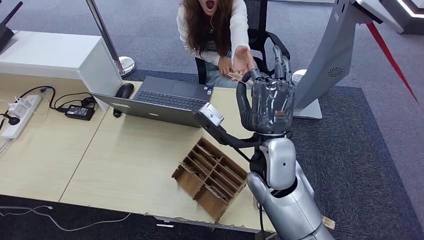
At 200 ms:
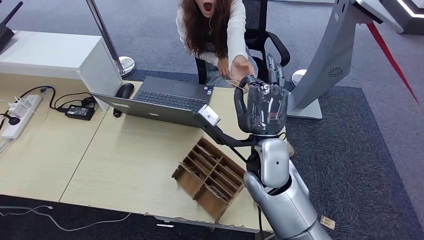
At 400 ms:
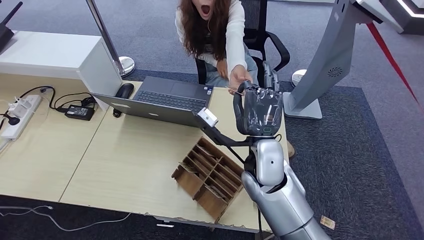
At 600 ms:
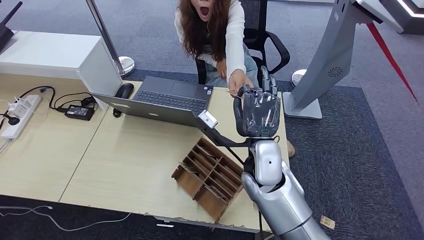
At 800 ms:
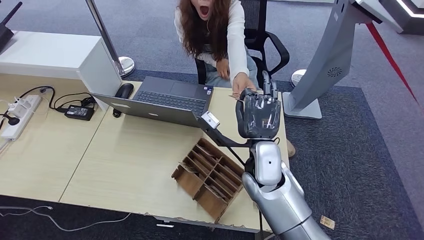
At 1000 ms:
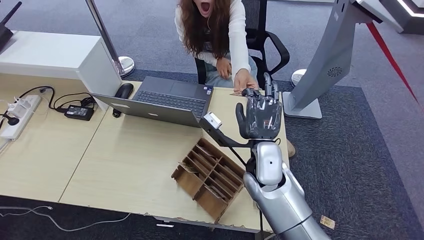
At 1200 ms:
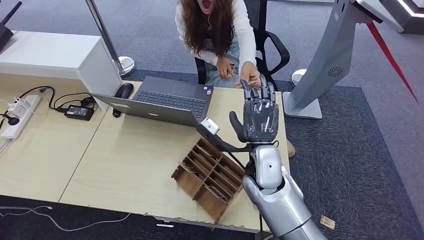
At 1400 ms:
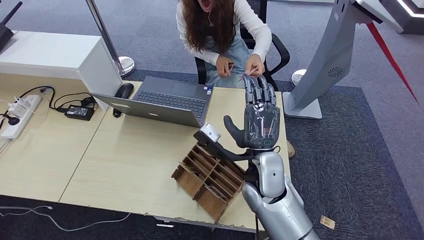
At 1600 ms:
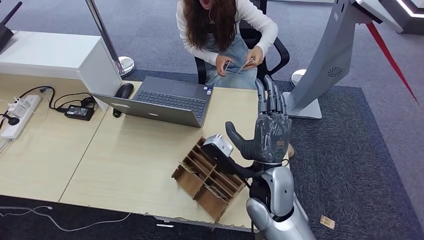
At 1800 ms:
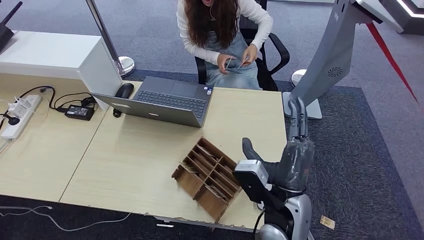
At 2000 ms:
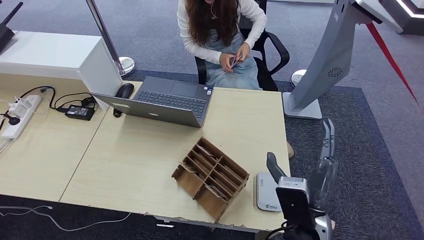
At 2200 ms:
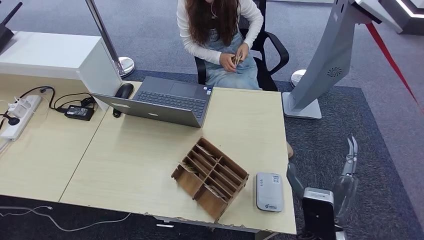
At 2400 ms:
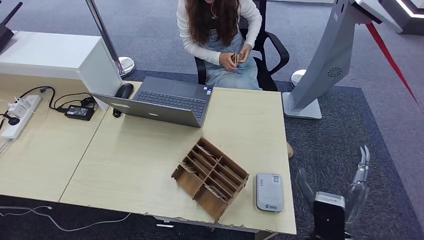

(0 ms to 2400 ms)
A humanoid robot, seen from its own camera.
Step, 0 ms - 2400 ms: Hand the room key to the person.
0 ms - 1200 ms: The right hand heads downward, covering roughly 10 cm.
1200 ms - 2400 ms: The right hand travels backward and to the right by some 20 cm.

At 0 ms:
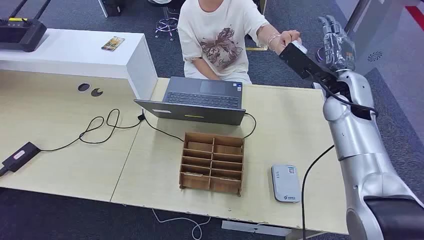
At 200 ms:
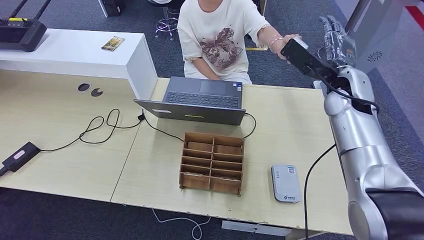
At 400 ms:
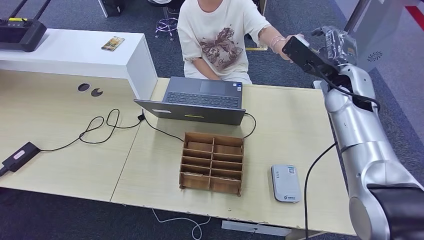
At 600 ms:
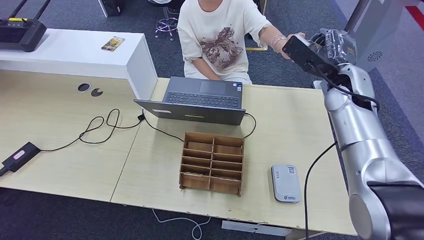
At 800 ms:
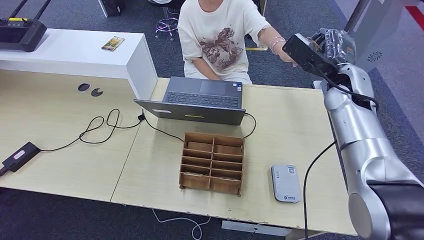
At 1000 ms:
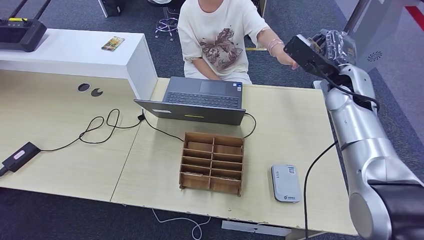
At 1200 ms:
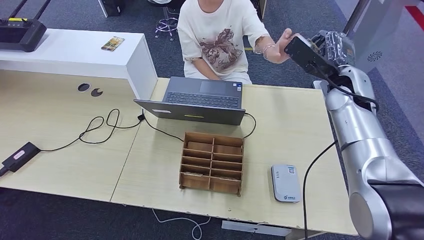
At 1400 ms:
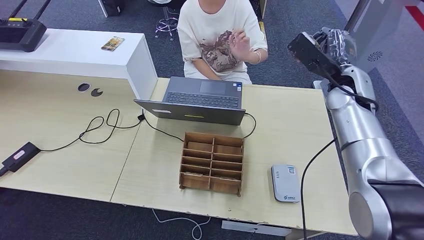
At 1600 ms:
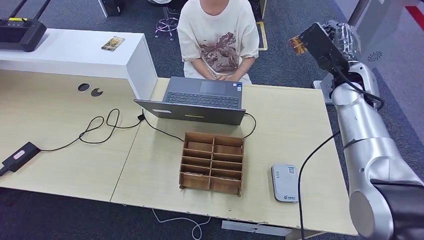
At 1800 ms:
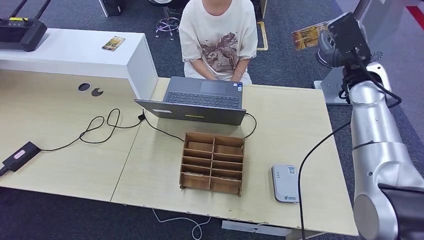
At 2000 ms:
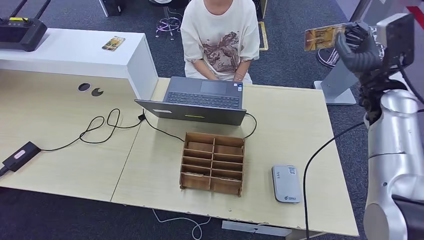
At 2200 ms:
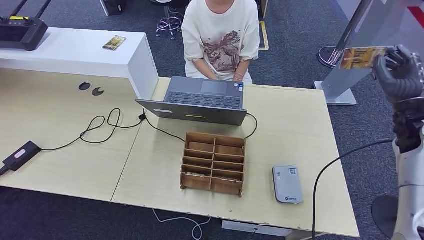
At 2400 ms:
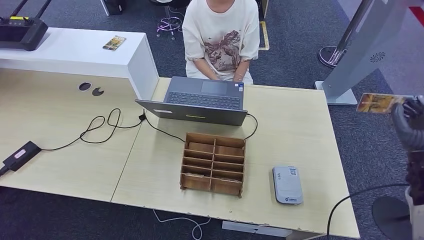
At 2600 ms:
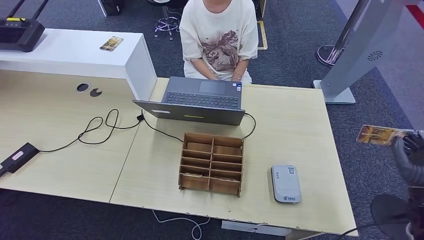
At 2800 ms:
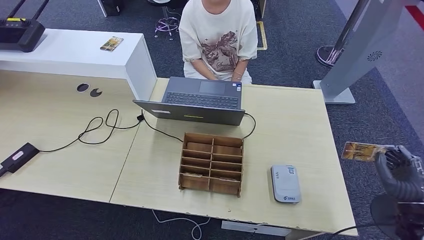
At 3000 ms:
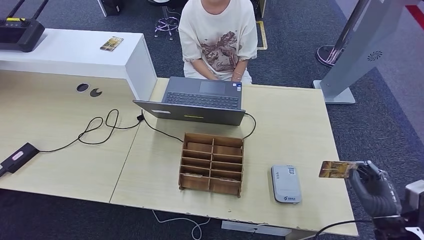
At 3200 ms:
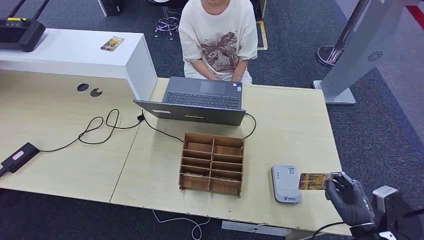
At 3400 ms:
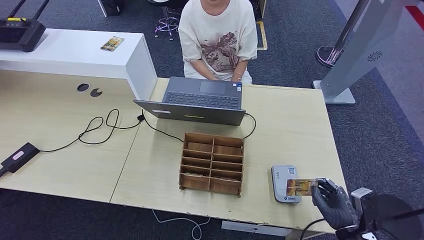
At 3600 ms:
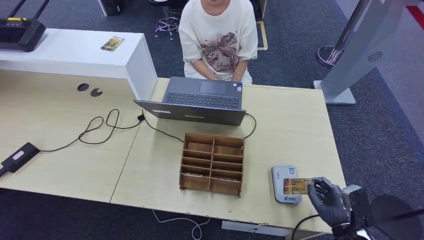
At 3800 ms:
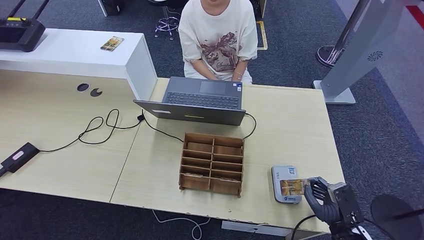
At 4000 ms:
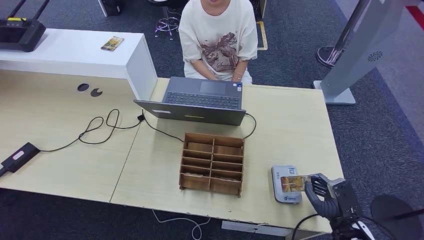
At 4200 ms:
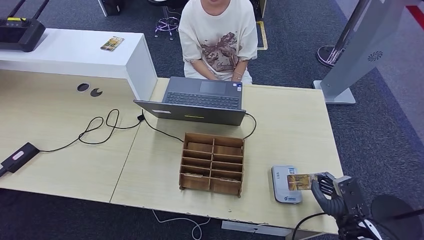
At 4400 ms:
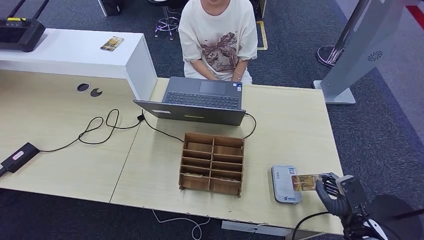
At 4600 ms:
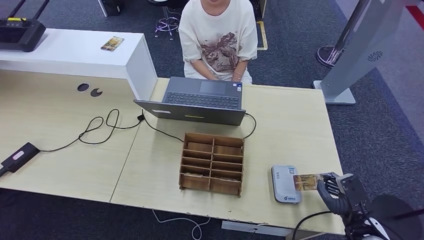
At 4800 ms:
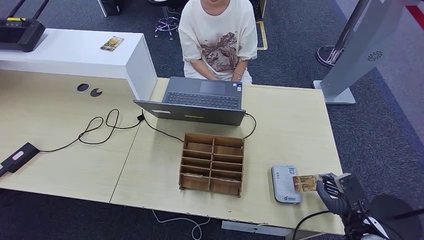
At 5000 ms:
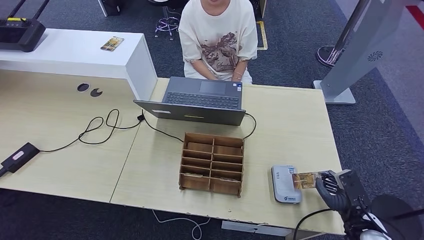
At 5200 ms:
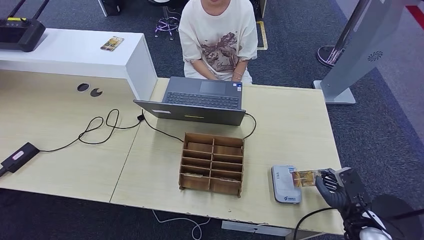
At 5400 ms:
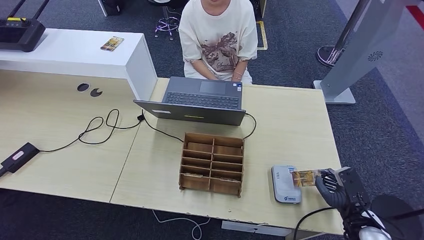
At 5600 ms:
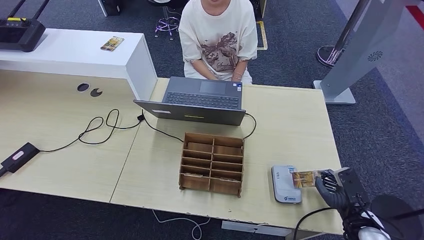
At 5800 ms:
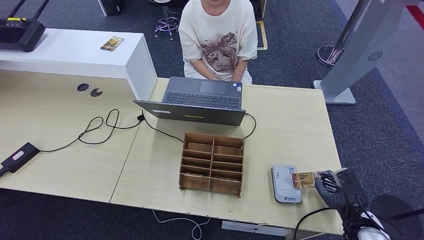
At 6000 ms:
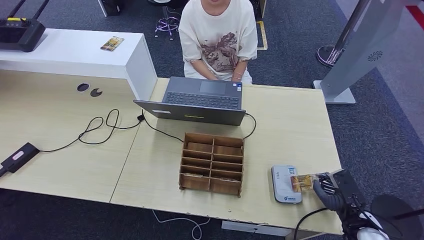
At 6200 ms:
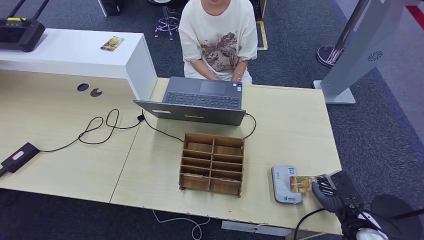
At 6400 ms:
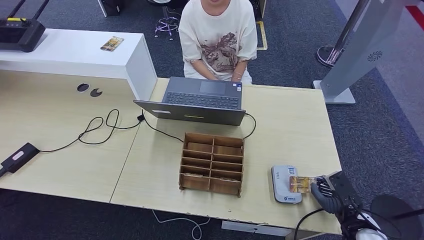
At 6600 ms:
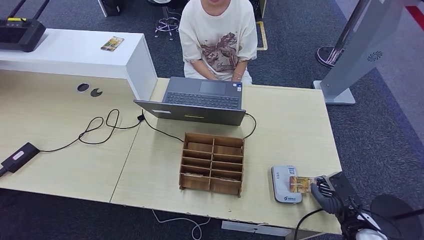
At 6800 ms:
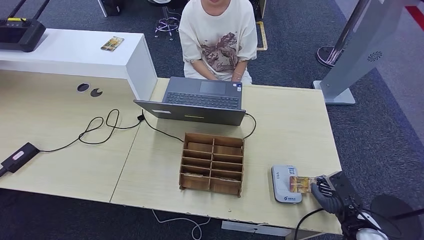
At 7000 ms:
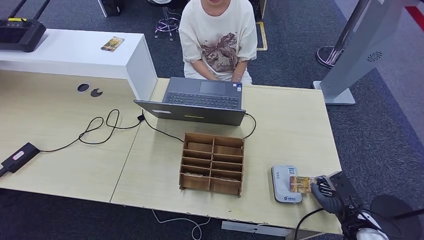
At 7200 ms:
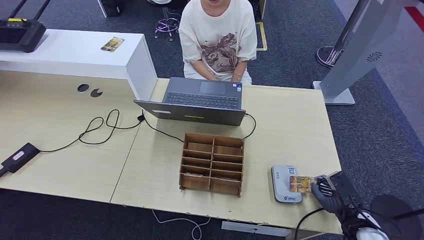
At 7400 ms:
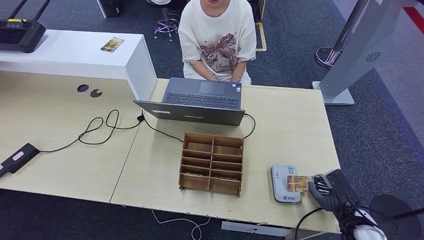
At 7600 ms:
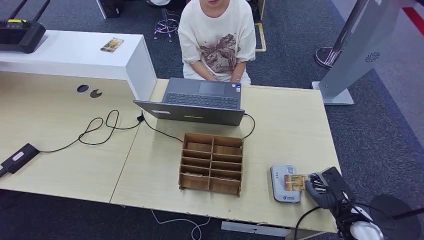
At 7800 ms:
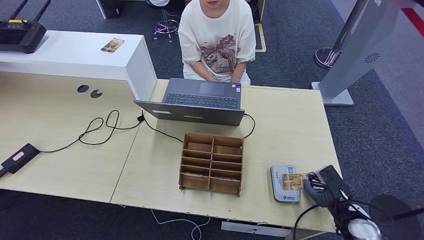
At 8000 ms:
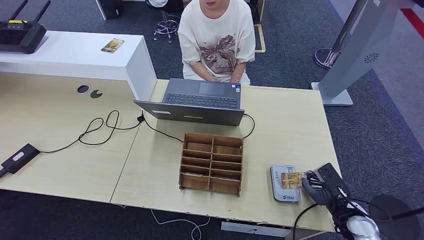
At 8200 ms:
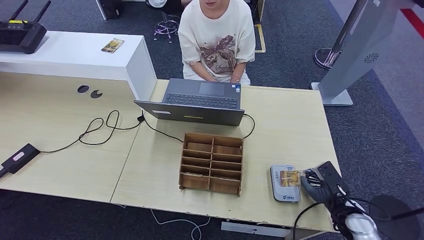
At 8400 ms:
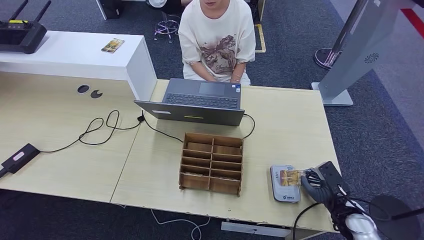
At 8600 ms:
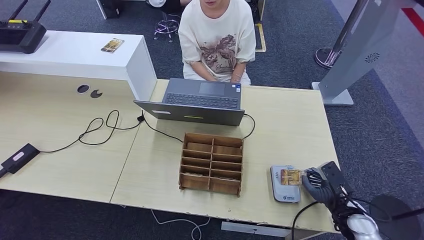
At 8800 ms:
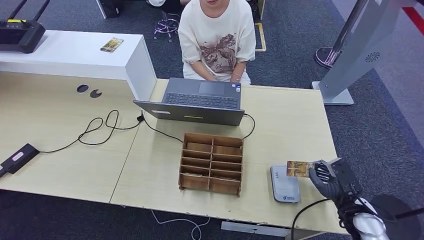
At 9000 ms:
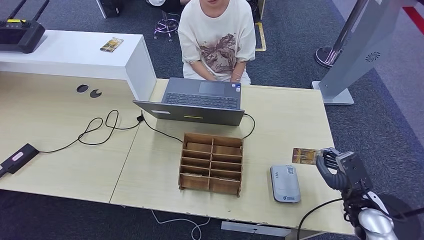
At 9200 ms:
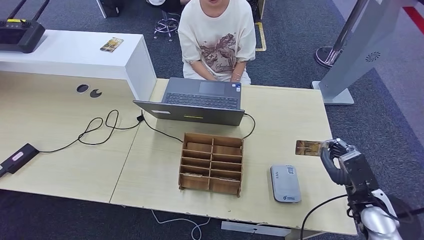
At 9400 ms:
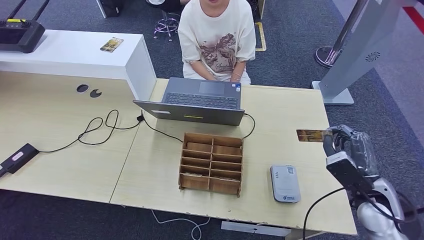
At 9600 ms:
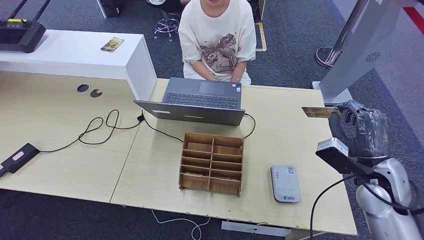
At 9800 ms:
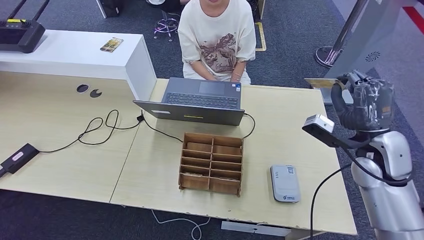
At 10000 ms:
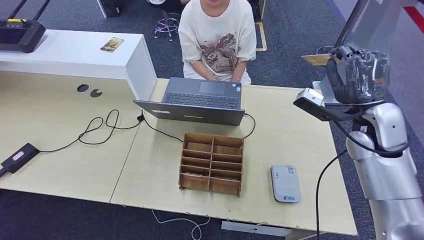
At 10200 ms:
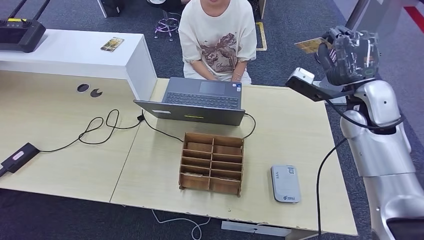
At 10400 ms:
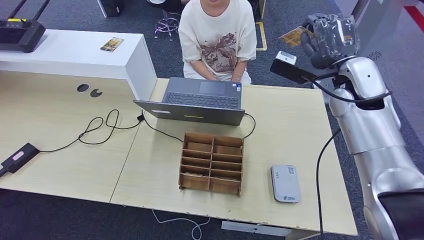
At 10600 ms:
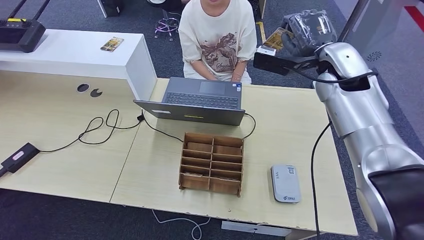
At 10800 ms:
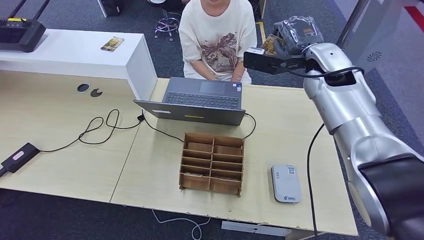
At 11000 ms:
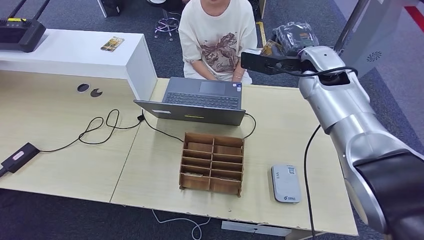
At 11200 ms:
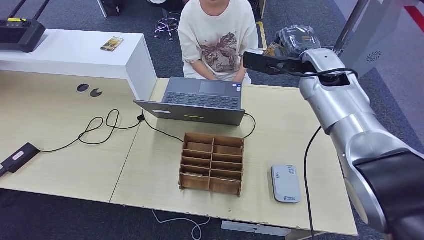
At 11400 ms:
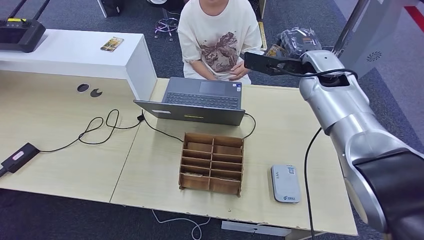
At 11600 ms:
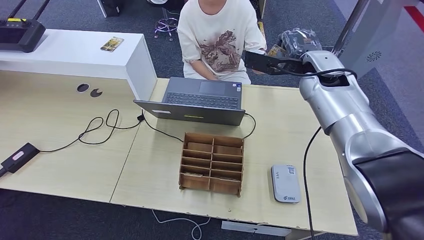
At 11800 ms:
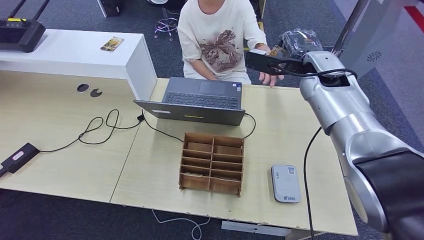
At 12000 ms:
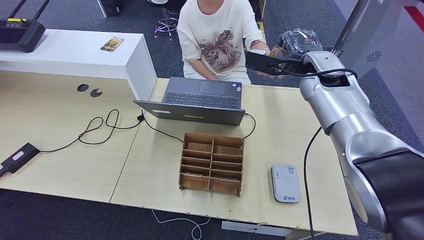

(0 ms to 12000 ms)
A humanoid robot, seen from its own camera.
Step, 0 ms - 2600 ms: Take the ID card from the person's hand.
Step, 2800 ms - 9400 ms: Place the ID card on the card reader.
1600 ms - 3000 ms: The right hand travels backward and downward by approximately 35 cm.
3000 ms - 4400 ms: The right hand goes about 5 cm downward.
4400 ms - 7600 ms: The hands stay close to where they were, moving slightly.
7600 ms - 9000 ms: The right hand shifts some 5 cm upward.
9000 ms - 10400 ms: The right hand moves upward and forward, about 30 cm.
10400 ms - 12000 ms: The right hand ends up about 5 cm from where it was.

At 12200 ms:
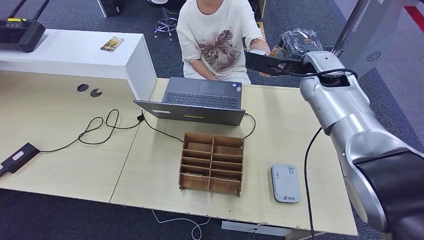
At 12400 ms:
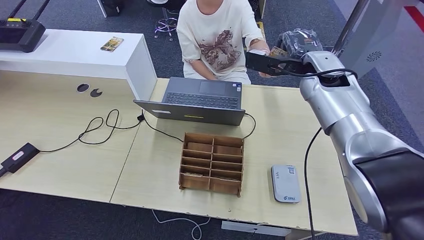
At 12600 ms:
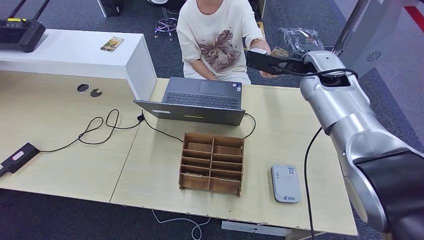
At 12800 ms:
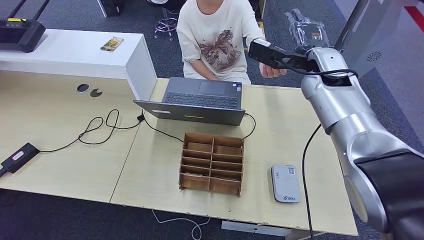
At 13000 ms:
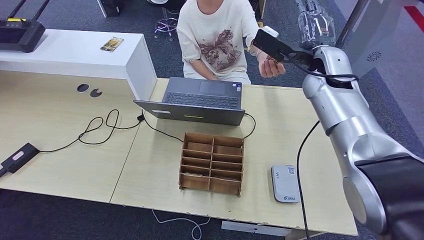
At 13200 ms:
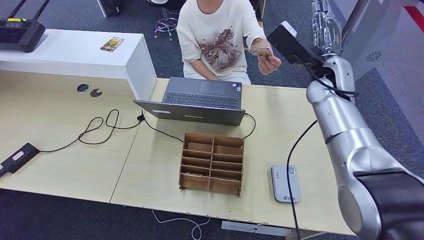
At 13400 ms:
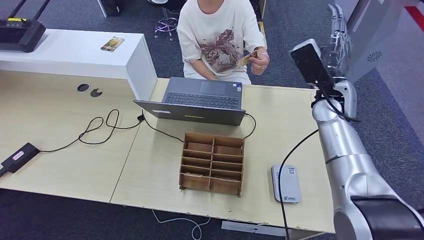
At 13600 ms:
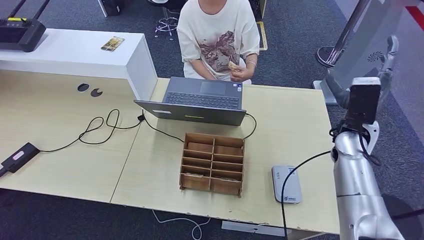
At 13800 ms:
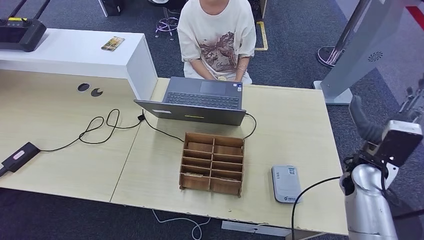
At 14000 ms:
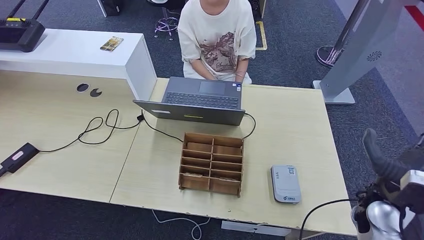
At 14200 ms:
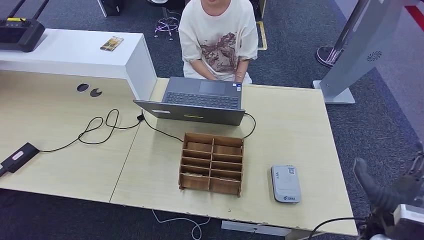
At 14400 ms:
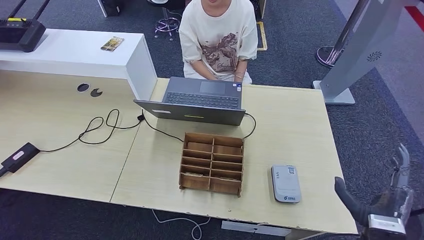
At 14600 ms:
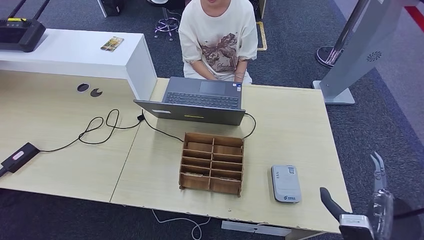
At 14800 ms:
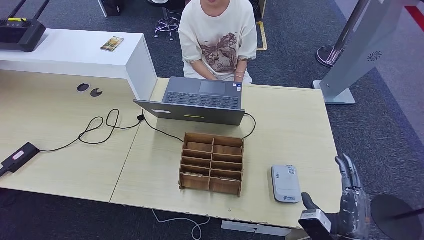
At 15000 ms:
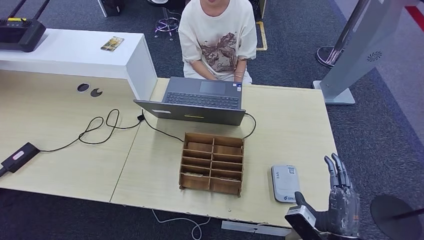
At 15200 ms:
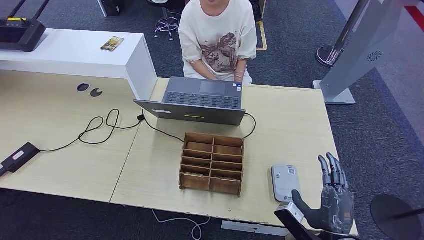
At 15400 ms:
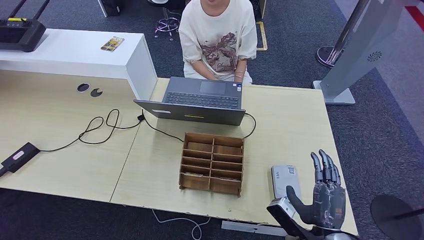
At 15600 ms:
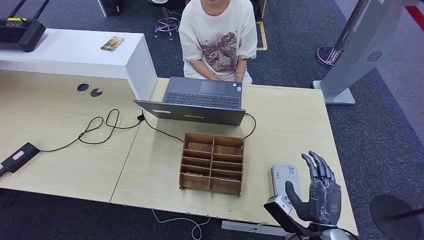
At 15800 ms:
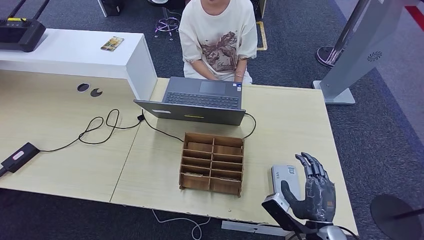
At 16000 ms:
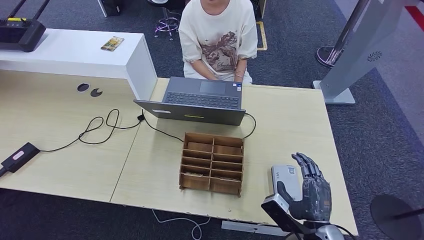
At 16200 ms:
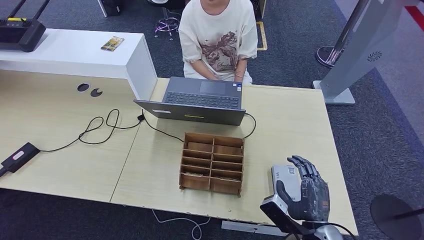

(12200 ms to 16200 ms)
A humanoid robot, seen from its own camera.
12200 ms - 13600 ms: The right hand is displaced downward, backward and to the right by some 15 cm.
13600 ms - 14800 ms: The right hand heads backward and downward, covering approximately 30 cm.
14800 ms - 16200 ms: The right hand travels to the left by roughly 5 cm.
